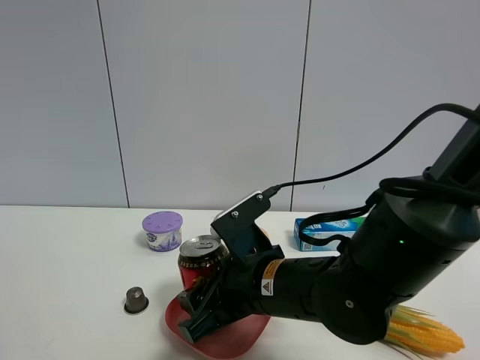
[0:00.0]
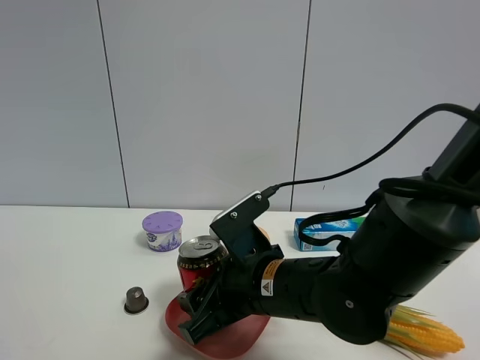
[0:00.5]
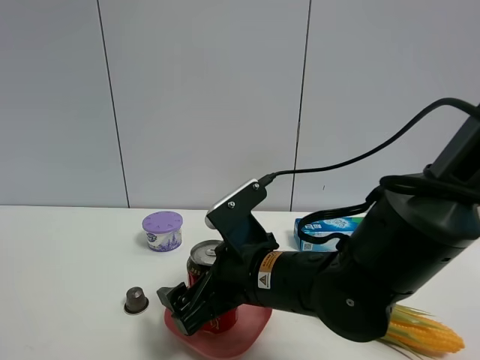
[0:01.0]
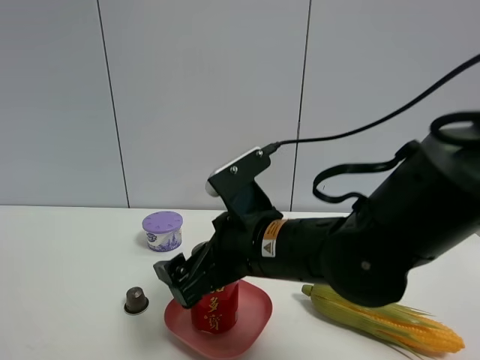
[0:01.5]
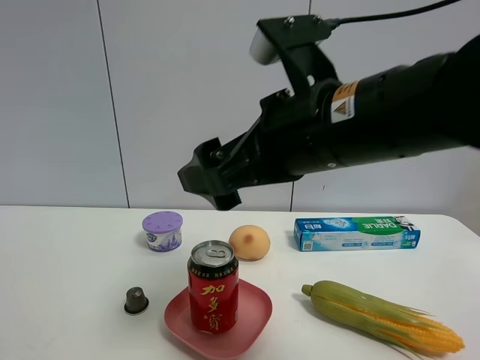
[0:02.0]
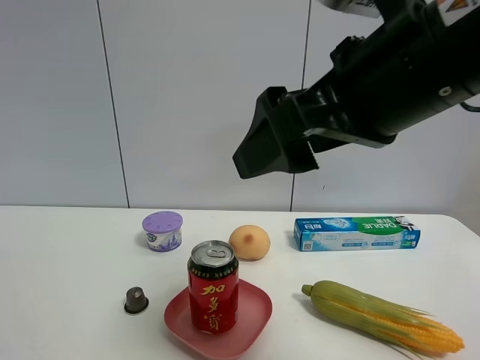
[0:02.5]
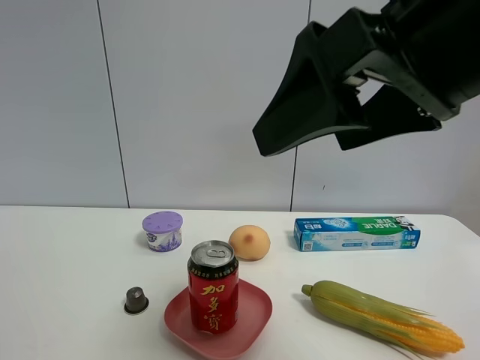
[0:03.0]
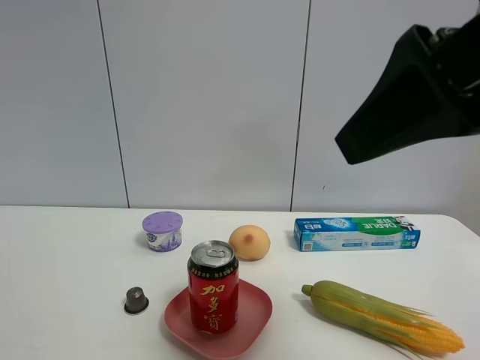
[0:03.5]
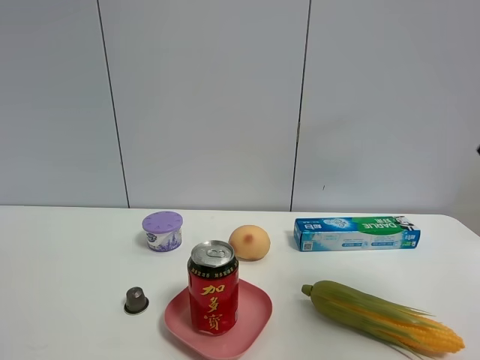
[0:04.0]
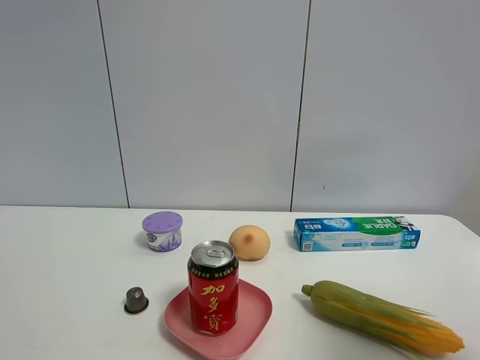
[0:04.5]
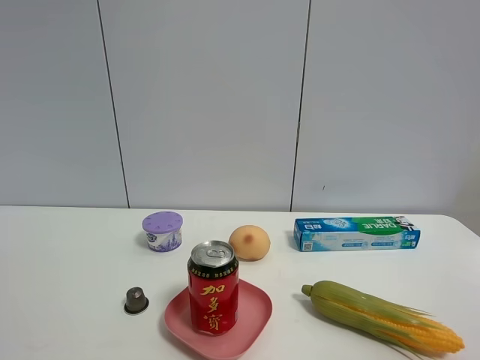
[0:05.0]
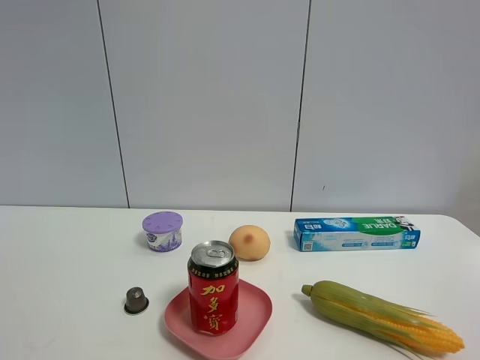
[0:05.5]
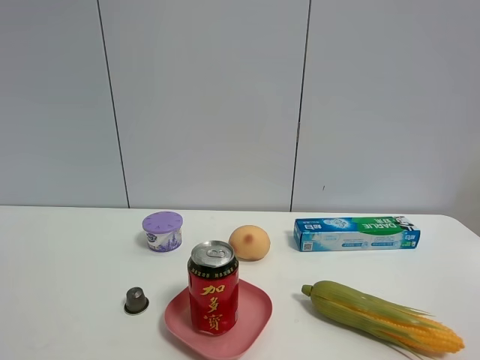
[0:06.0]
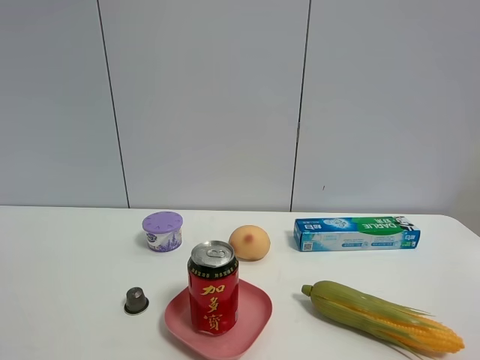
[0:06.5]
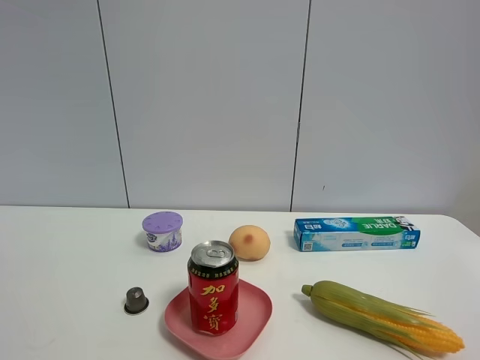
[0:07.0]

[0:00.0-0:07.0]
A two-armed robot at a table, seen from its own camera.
Task of the whole recording: the gripper move the object.
0:00.0 to 0:02.0: The right gripper heads upward, covering roughly 20 cm, and opens.
0:02.0 to 0:03.5: The right gripper goes roughly 15 cm to the right, upward and backward.
0:03.5 to 0:05.0: The right gripper goes approximately 20 cm to the right, backward and downward.
